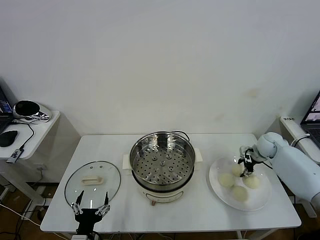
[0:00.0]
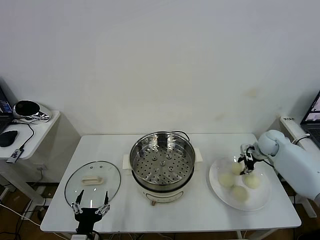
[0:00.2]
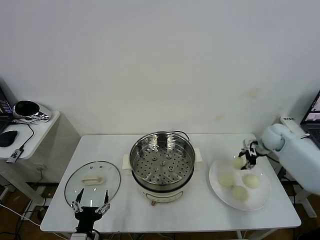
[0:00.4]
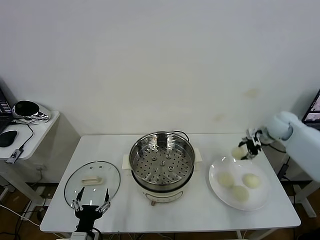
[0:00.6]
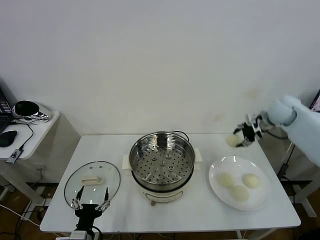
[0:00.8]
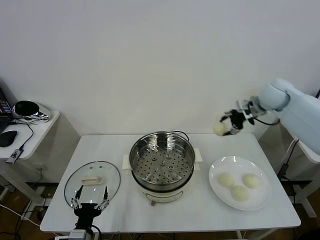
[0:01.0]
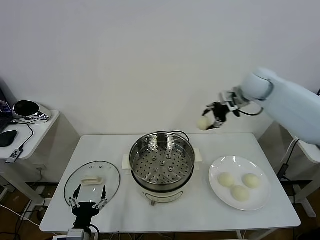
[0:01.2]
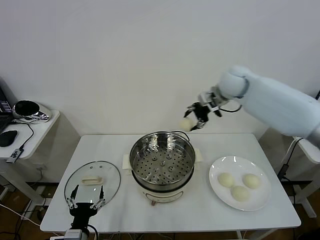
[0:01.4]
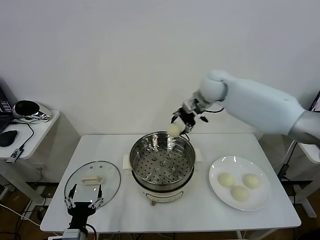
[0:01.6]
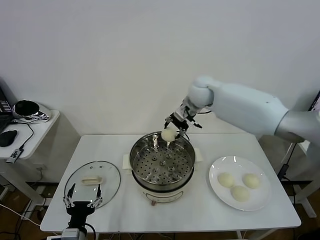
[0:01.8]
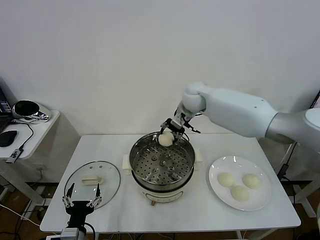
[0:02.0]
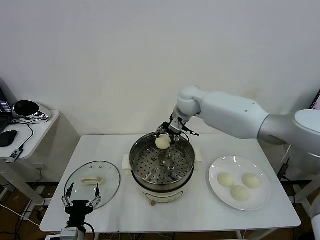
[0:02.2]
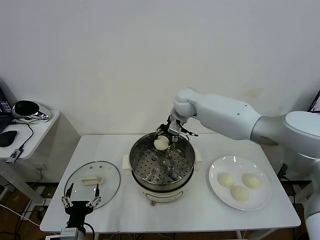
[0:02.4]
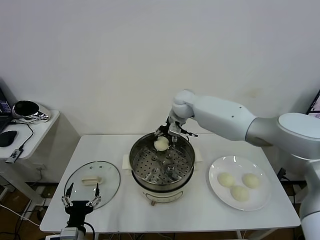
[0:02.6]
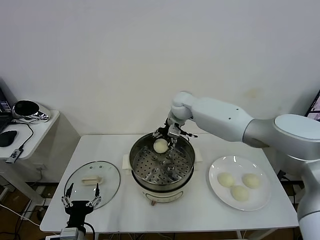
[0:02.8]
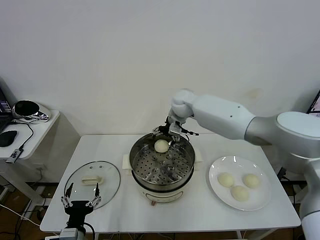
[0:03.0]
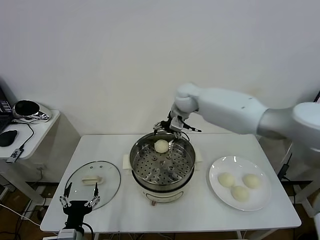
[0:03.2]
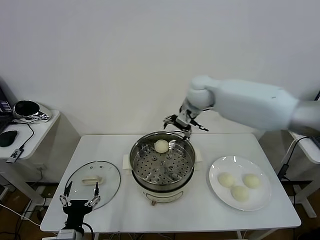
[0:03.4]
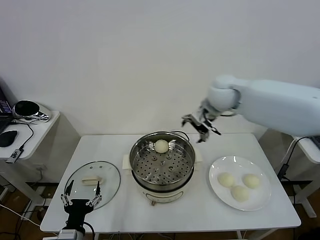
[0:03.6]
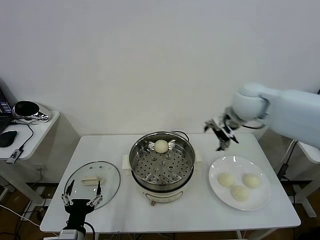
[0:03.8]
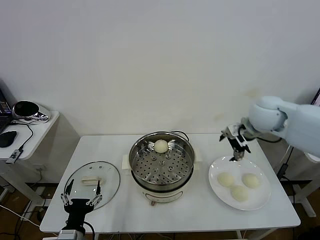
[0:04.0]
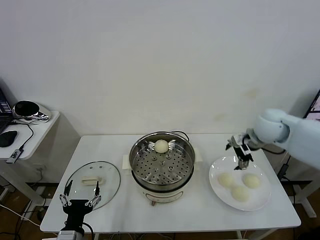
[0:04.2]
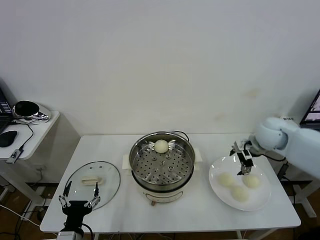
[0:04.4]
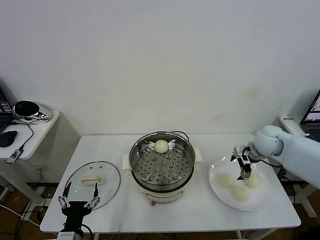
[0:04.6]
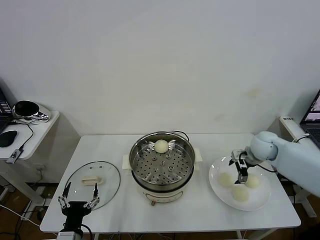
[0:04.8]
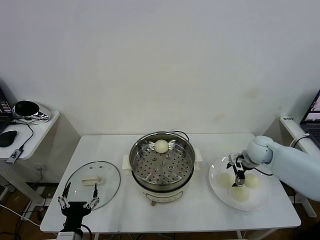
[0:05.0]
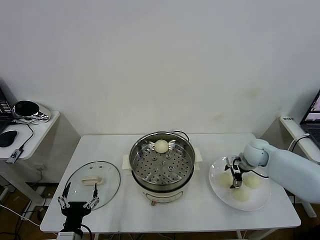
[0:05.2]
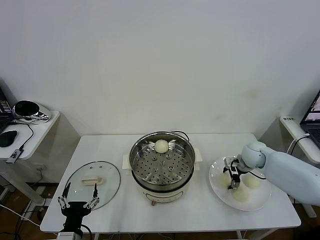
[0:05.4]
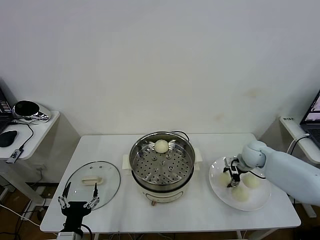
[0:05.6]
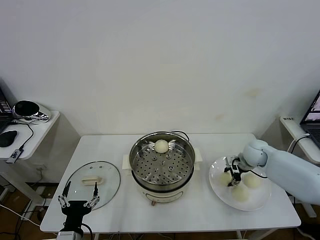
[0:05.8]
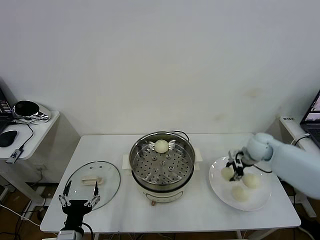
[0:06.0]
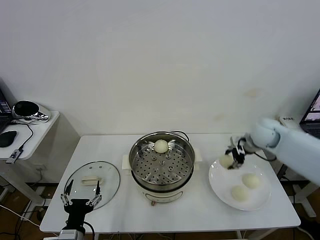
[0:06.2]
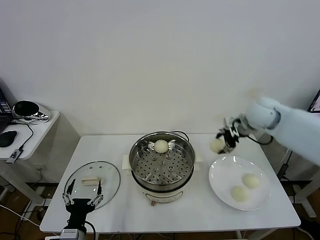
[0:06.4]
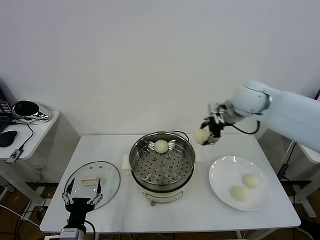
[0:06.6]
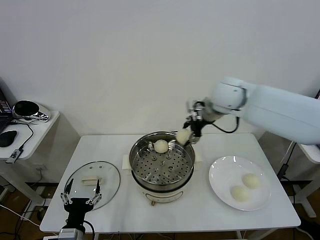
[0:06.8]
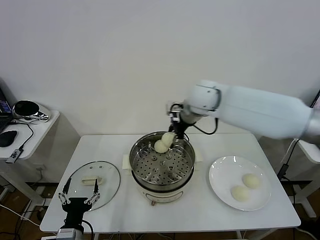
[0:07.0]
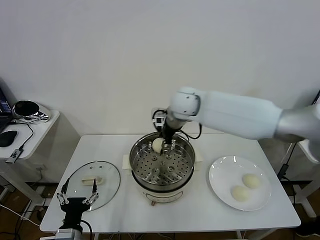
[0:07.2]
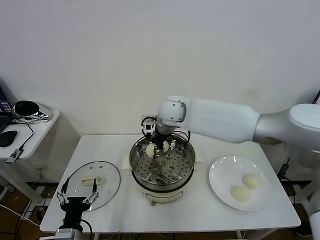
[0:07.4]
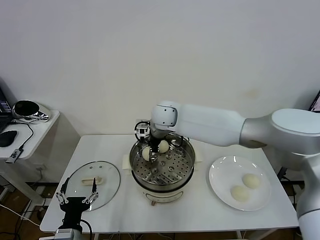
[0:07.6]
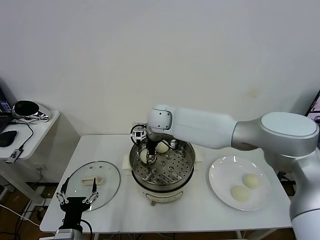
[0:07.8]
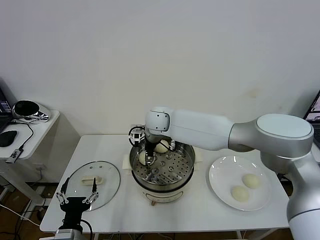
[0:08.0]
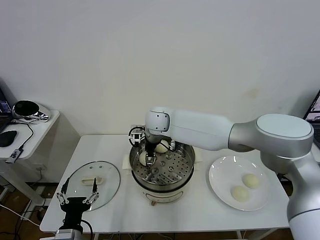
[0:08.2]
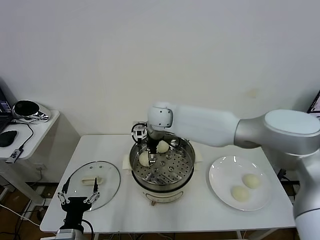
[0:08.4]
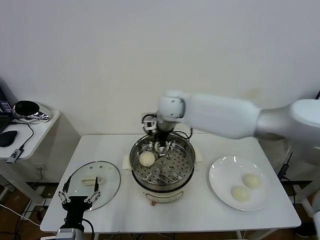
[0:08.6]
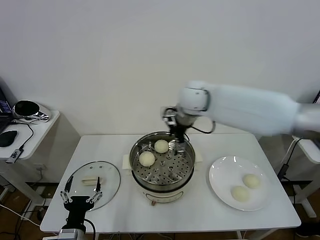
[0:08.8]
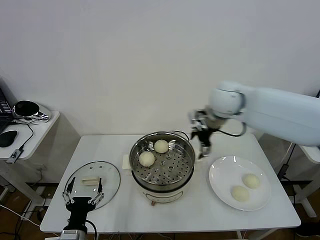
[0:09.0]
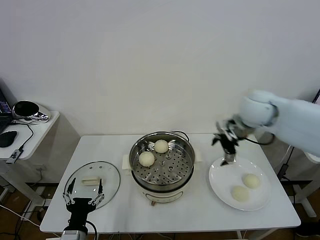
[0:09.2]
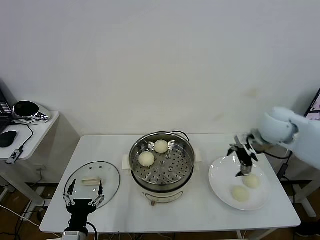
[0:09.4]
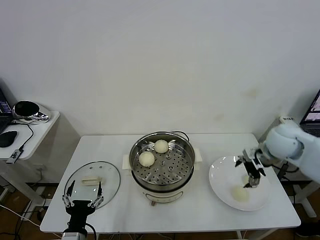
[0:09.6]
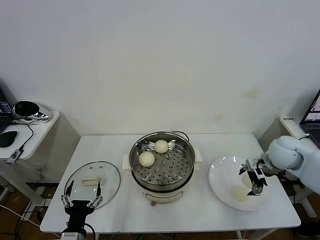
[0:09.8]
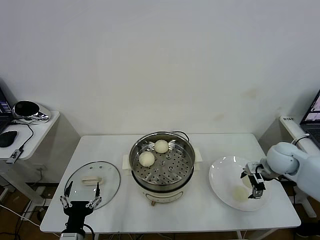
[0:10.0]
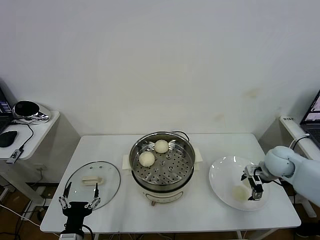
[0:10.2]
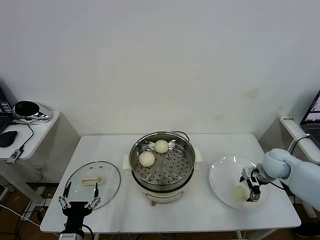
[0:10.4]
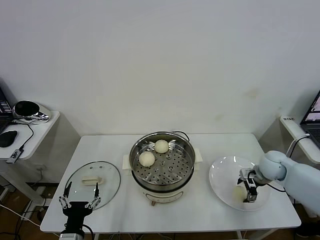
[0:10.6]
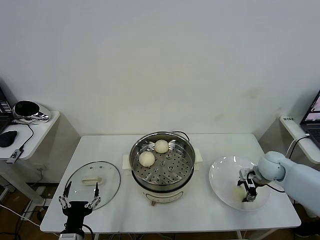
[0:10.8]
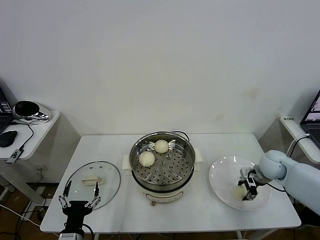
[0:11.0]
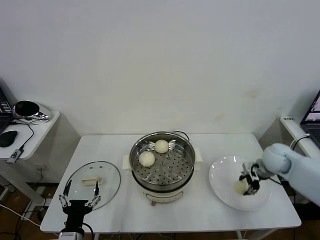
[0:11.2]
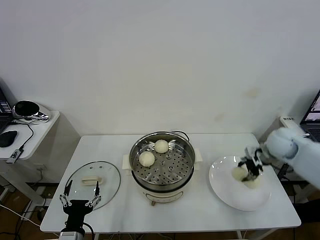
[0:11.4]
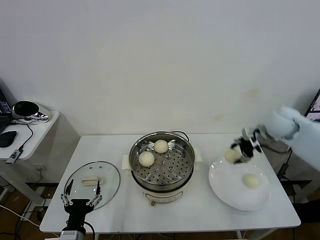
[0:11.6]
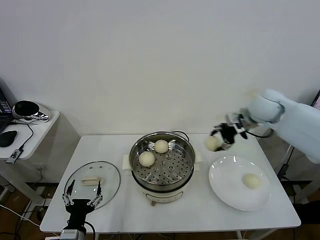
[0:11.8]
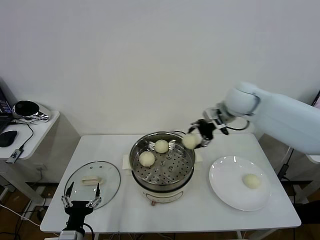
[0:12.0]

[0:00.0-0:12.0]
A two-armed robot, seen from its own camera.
Task of the whole recording: take steamed baozi put them in steamer then cover it.
Step, 0:00.2 to 0:03.0: Place the baozi on the steamer with right gripper.
Step, 0:03.2 to 0:05.6: Grasp the baozi in the plate with right gripper.
Step, 0:05.8 to 0:08.4: Place the baozi on the steamer with right gripper.
Step, 0:08.6 to 0:10.8: Grasp the baozi in the plate with right gripper.
0:00.0 to 0:01.6: The right gripper travels to the left and upward by some 35 cm.
0:01.6 to 0:03.0: The right gripper is displaced to the left by approximately 5 cm, and opens its fingers.
0:03.0 to 0:04.4: The right gripper shifts about 30 cm to the right and backward.
0:04.4 to 0:06.0: The right gripper closes its fingers.
0:06.0 to 0:07.6: The right gripper moves to the left, about 35 cm.
0:07.6 to 0:09.0: The right gripper heads to the right and upward, covering some 25 cm, and opens.
0:09.0 to 0:10.4: The right gripper moves downward and to the right, some 30 cm.
0:10.4 to 0:12.0: The right gripper is displaced upward, to the left and forward by roughly 30 cm, and closes its fingers.

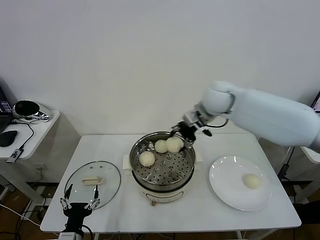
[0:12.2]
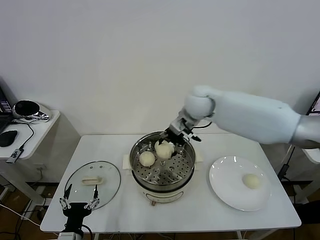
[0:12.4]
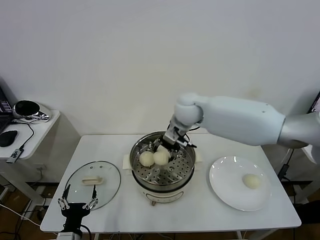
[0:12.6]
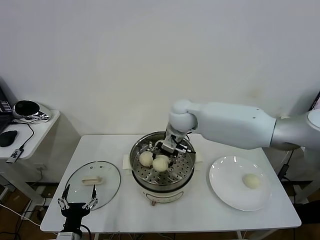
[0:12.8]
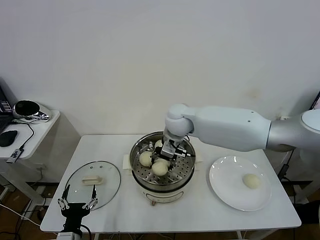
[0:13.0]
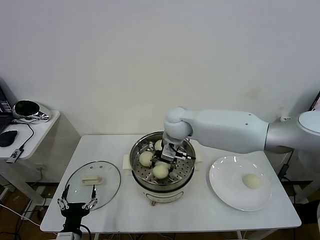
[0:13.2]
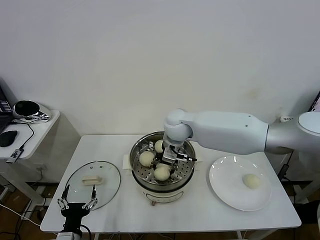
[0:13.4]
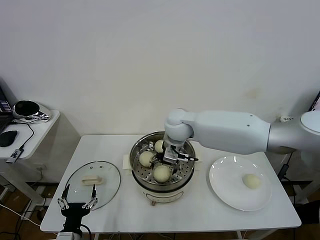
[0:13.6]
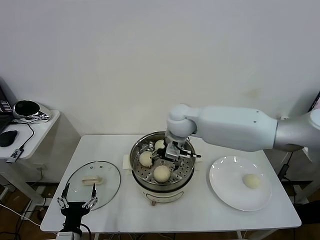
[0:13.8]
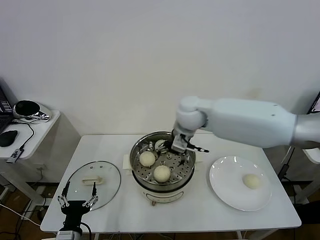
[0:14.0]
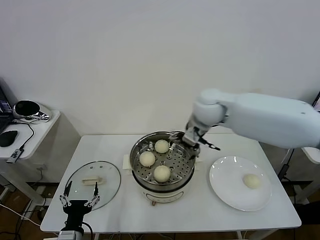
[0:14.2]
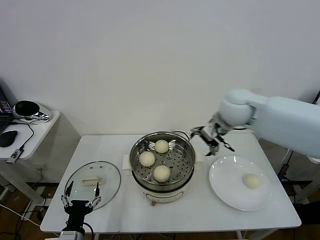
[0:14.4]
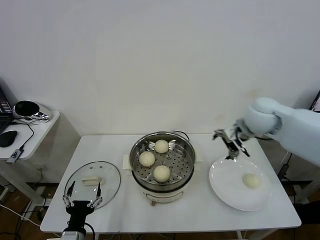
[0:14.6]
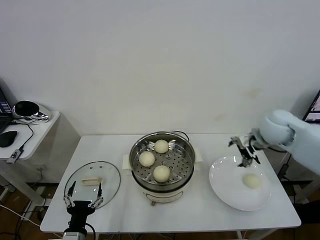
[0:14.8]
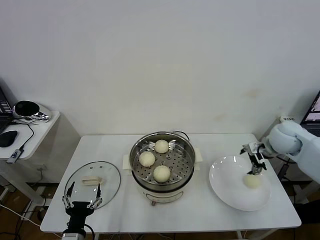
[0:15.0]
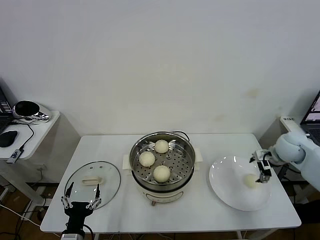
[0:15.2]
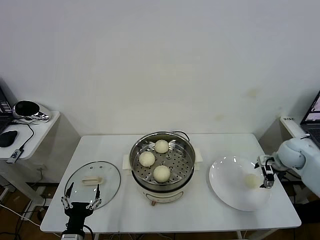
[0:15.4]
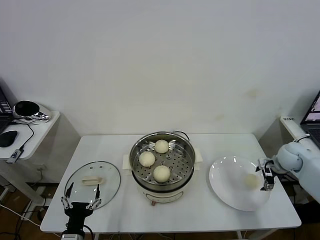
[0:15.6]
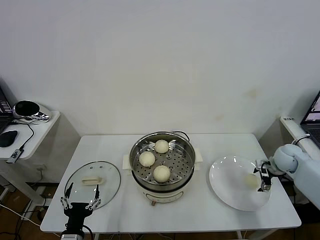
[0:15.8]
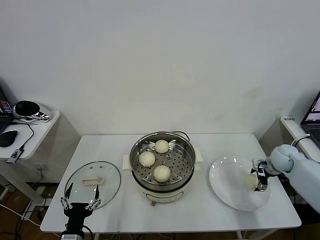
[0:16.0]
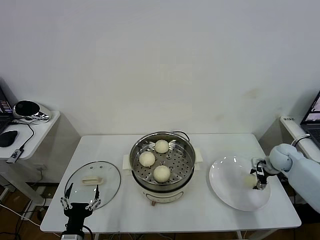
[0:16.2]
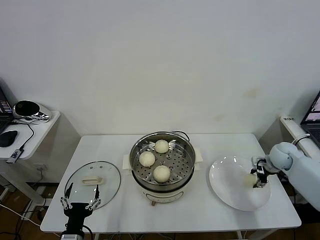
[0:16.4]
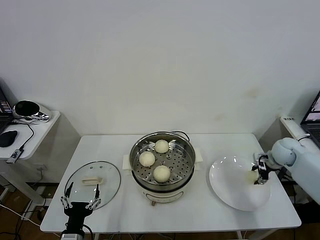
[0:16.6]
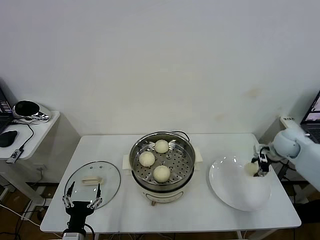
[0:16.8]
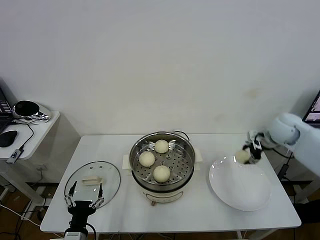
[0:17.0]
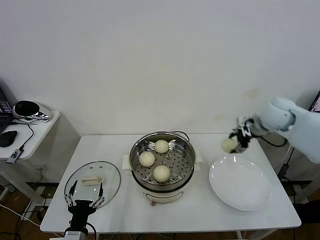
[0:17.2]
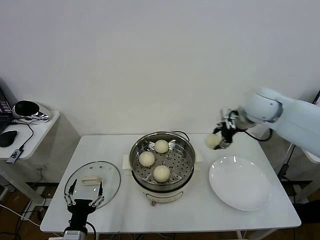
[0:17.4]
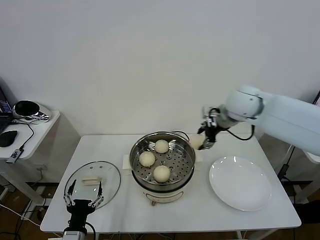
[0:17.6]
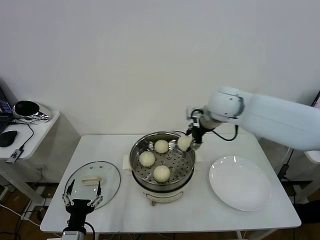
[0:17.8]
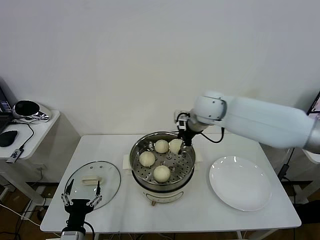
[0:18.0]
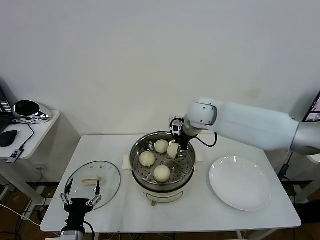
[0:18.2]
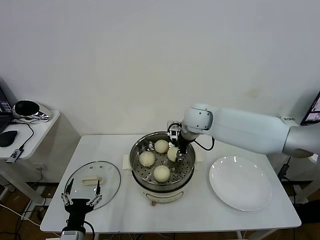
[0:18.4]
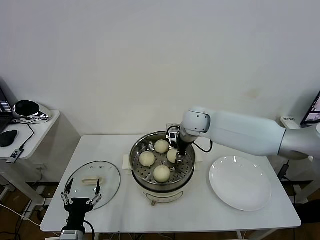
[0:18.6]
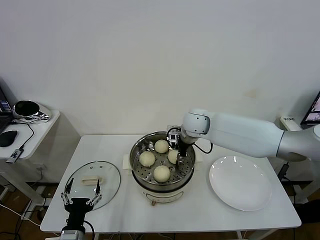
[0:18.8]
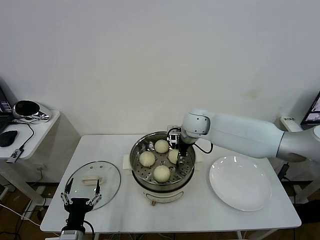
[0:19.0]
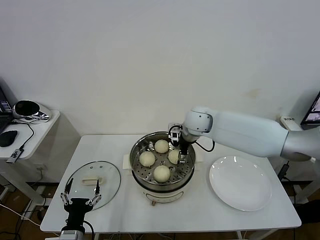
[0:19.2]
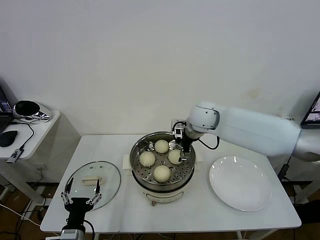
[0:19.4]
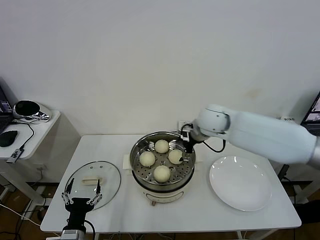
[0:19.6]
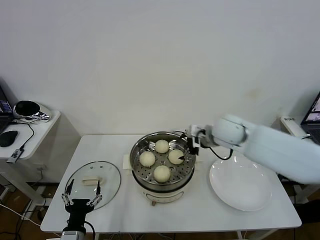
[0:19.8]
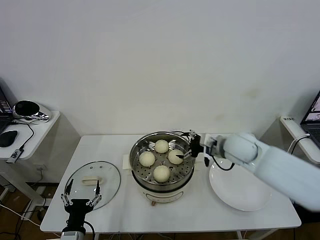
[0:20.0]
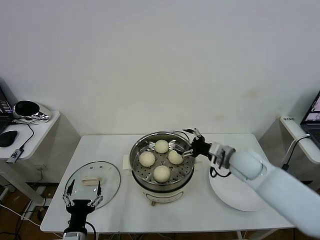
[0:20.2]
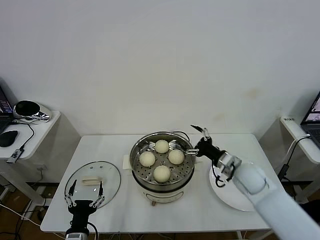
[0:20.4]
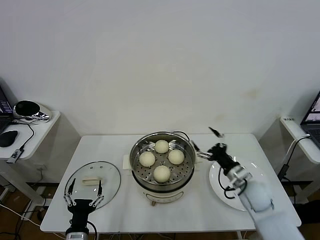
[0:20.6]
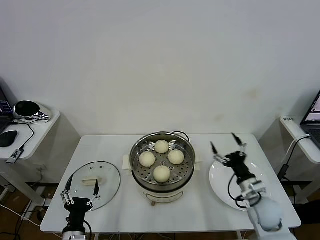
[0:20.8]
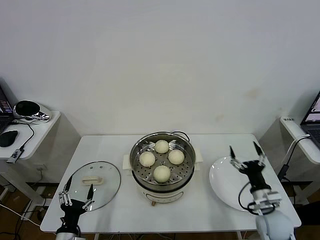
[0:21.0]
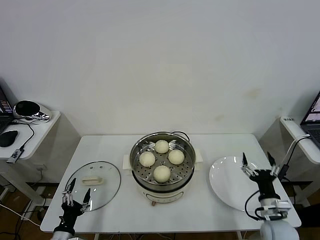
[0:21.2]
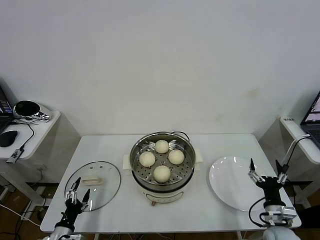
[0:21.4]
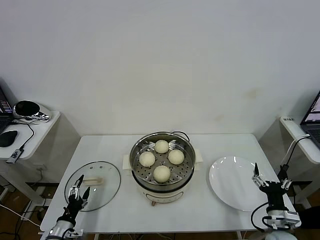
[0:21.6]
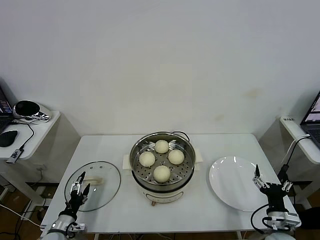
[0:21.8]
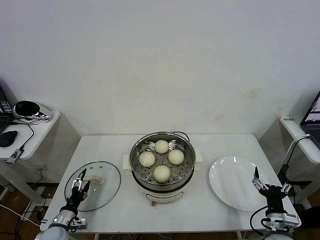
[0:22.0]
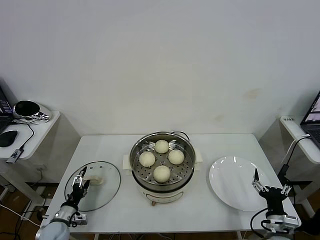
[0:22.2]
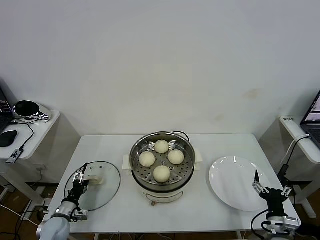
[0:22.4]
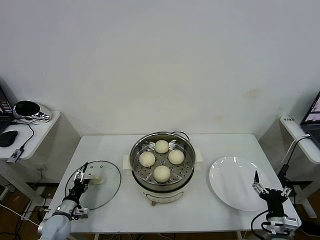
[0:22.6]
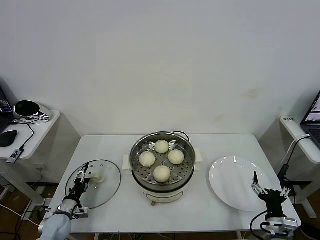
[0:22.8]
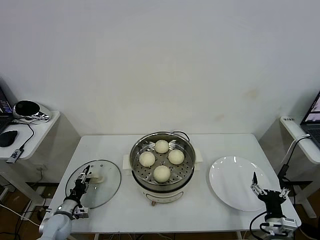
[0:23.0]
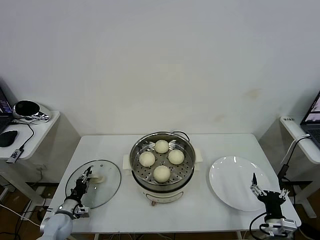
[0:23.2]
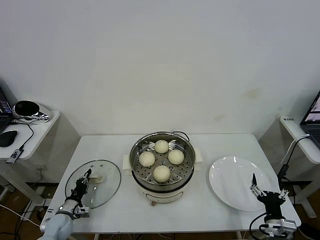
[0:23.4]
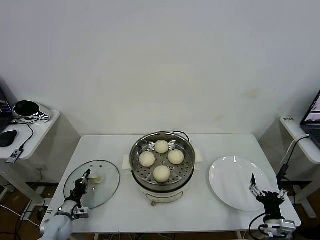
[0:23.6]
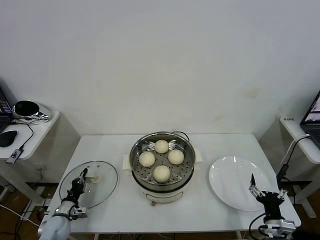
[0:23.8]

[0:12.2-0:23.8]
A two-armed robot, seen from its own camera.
Task of the whole recording: take steamed baozi put them in steamer then cover it.
Step, 0:12.2 to 0:13.6: Place the baozi on the steamer with right gripper.
Step, 0:13.8 to 0:16.4: Grasp the baozi in the plate with right gripper.
Step, 0:16.6 to 0:19.4: Place the baozi on the steamer with right gripper.
Step, 0:19.6 to 0:23.6: Grasp the pot lid with left gripper.
0:12.2 to 0:13.6: The right gripper moves to the left and downward, approximately 10 cm, and opens its fingers.
0:13.6 to 0:15.0: The right gripper goes about 35 cm to the right.
0:15.0 to 0:16.6: The right gripper heads downward and to the right, covering roughly 10 cm, and closes.
0:16.6 to 0:18.0: The right gripper heads to the left and upward, covering approximately 35 cm.
0:18.0 to 0:19.4: The right gripper opens up.
0:19.4 to 0:21.0: The right gripper shifts roughly 40 cm backward, downward and to the right. The left gripper travels downward by roughly 5 cm.
0:21.0 to 0:22.4: The right gripper shifts roughly 10 cm backward, while the left gripper heads forward, to the left and downward, covering roughly 15 cm.
0:22.4 to 0:23.8: The left gripper closes up.
